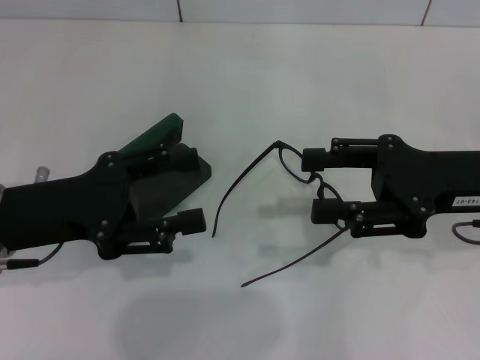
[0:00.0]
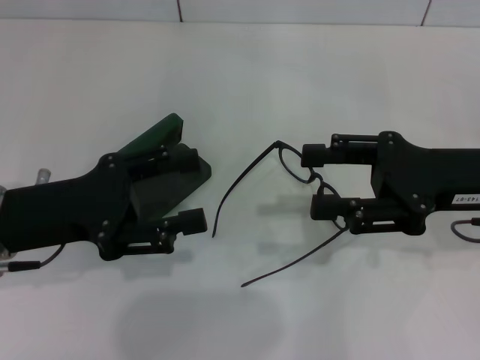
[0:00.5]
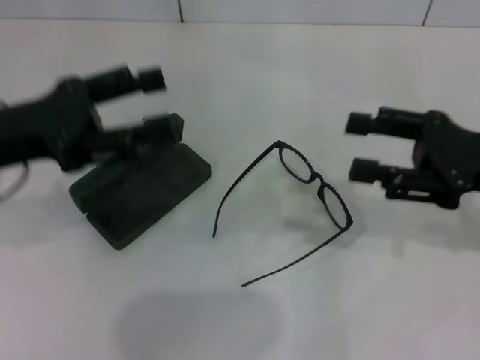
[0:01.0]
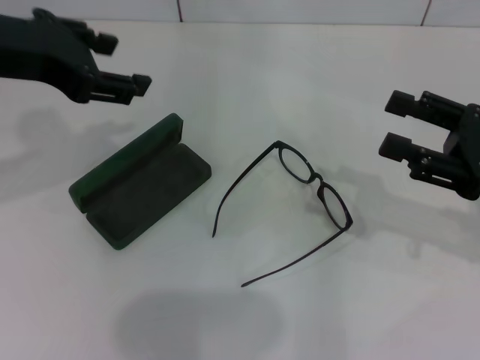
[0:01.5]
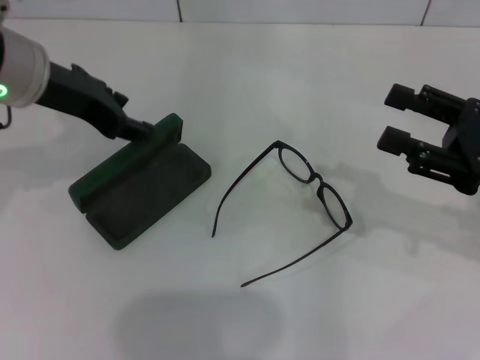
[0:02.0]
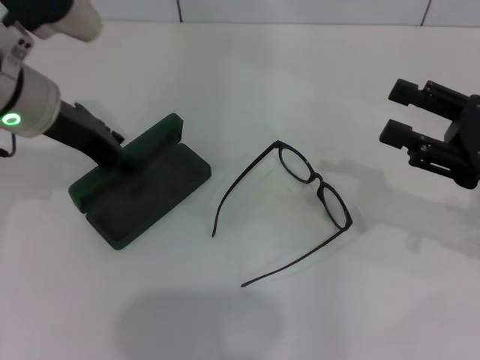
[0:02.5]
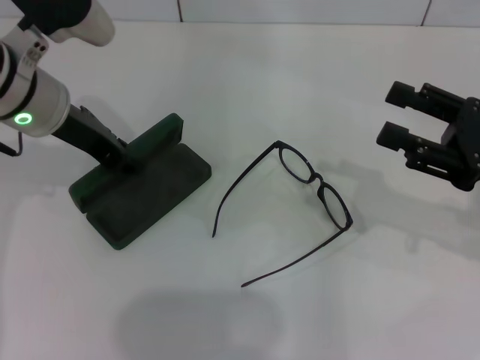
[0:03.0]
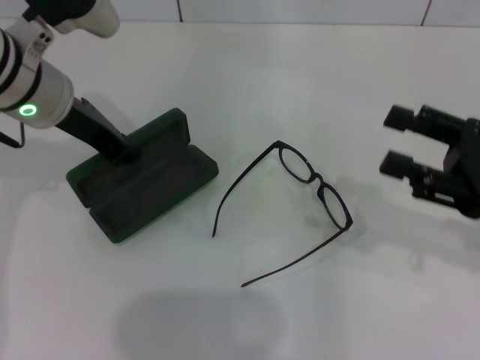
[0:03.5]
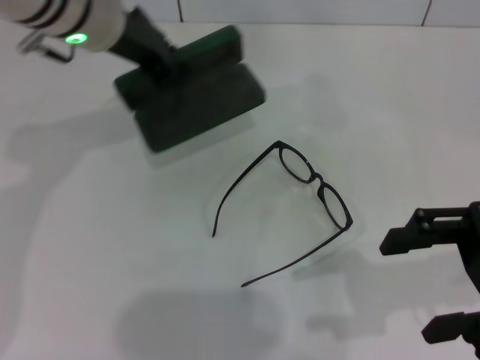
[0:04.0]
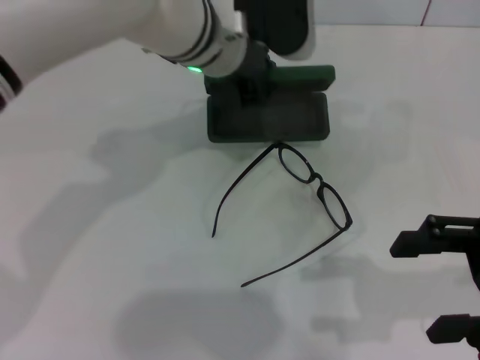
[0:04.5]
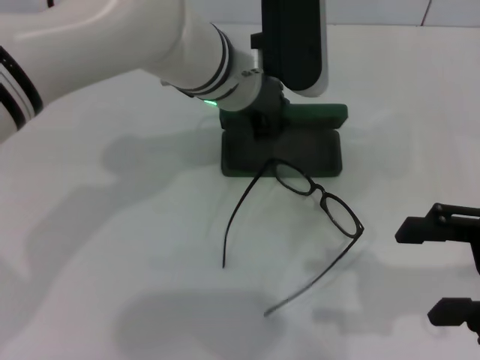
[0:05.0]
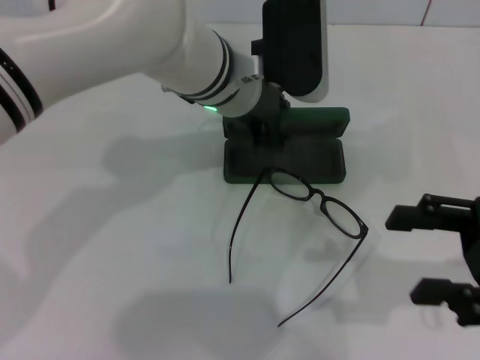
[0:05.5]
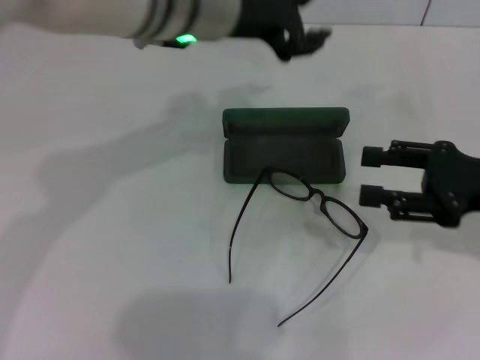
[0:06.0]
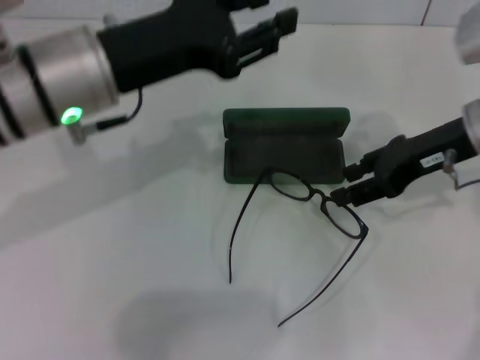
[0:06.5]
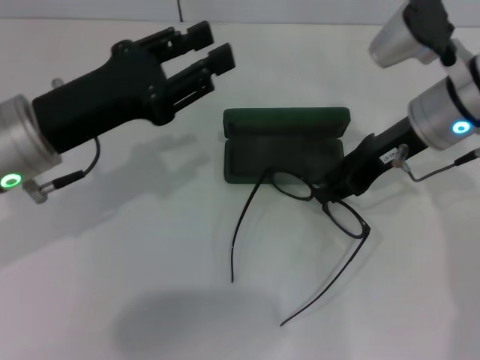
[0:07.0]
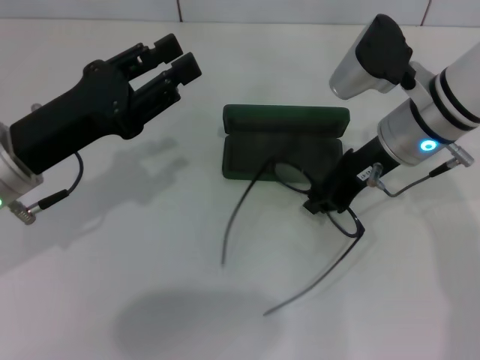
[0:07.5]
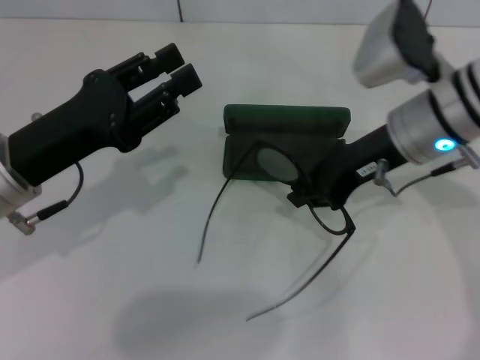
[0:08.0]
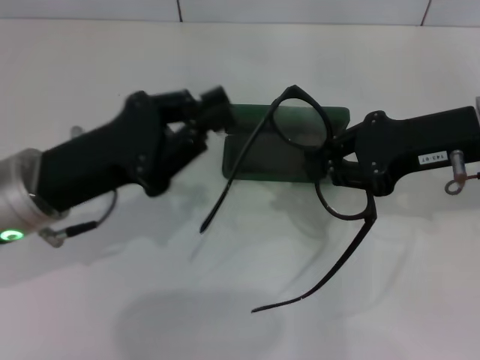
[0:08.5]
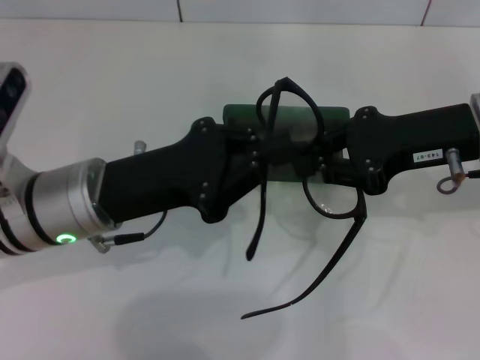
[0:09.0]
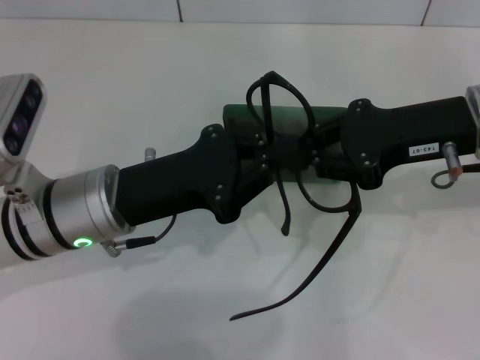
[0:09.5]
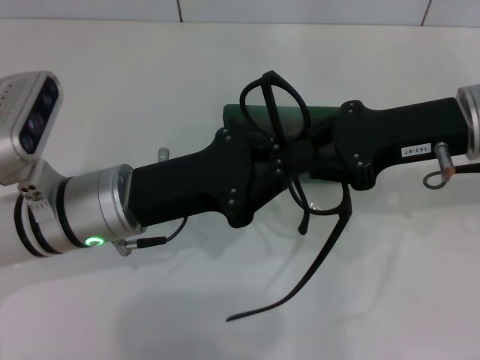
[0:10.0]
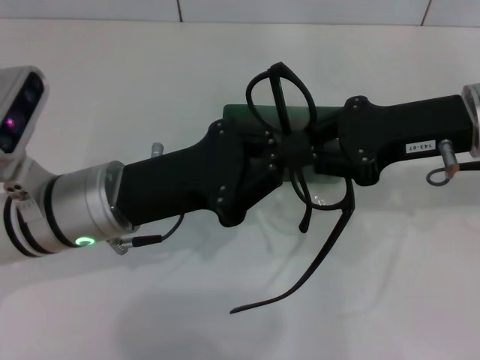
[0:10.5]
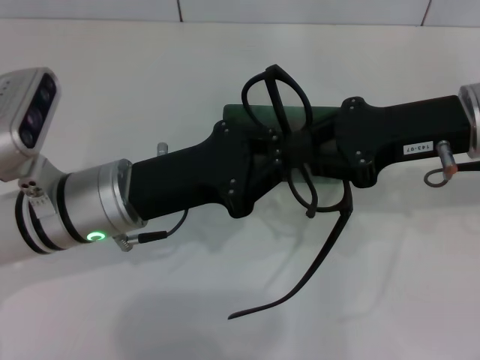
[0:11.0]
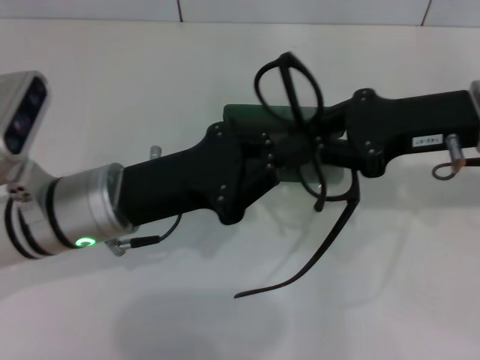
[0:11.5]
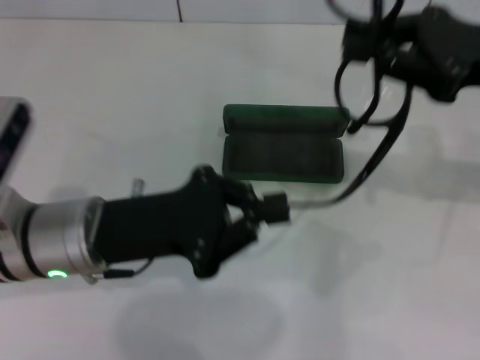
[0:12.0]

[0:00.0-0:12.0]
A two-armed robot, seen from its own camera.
Step, 0:00.0 to 0:03.0: Grab the glasses case with your left hand.
Step, 0:03.5 to 0:05.5: Place the glasses case in the center of the table with your left hand.
Step, 0:06.0 to 0:07.0: Grab the eyeglass frame with your right hand.
0:00.0 to 0:02.0: The right gripper goes about 5 cm to the right, while the left gripper is displaced forward and upward by approximately 15 cm.
0:02.0 to 0:04.0: The left gripper travels to the right by about 5 cm, and closes its fingers.
0:04.0 to 0:06.0: The right gripper is displaced forward by approximately 5 cm. The left gripper is displaced to the right by approximately 5 cm, and opens up.
0:06.0 to 0:08.0: The left gripper heads to the left, downward and backward, covering roughly 20 cm. Meanwhile the right gripper shifts roughly 15 cm to the left and forward, and closes.
0:08.0 to 0:10.0: The left gripper shifts about 10 cm to the right, and closes up. The right gripper ends up roughly 5 cm from where it was.
0:10.0 to 0:12.0: The right gripper shifts roughly 5 cm to the right.

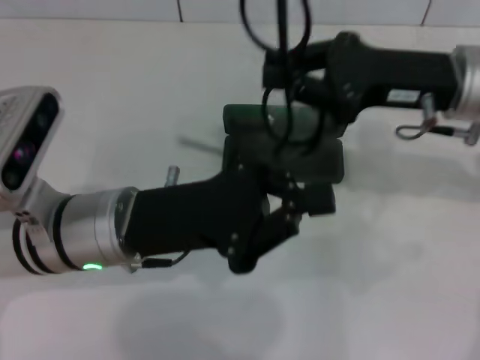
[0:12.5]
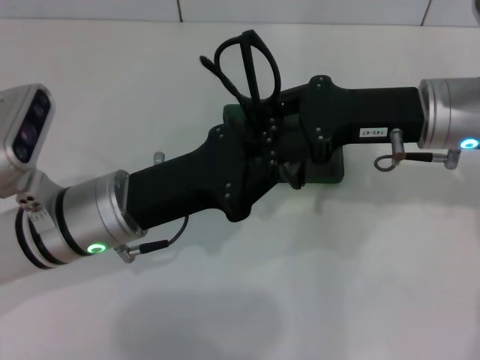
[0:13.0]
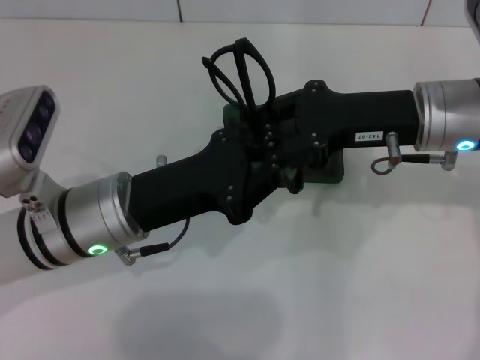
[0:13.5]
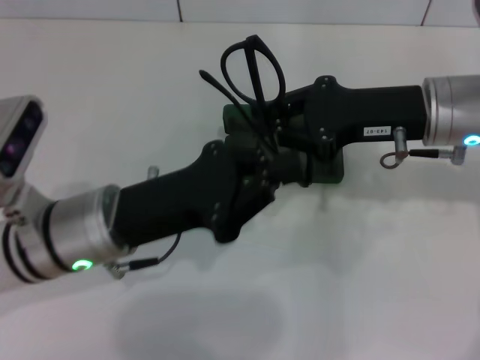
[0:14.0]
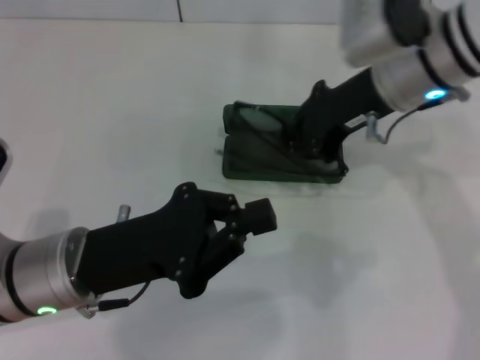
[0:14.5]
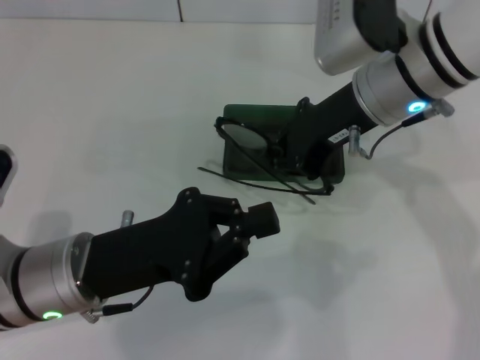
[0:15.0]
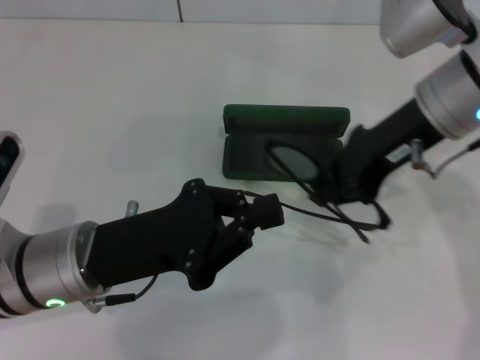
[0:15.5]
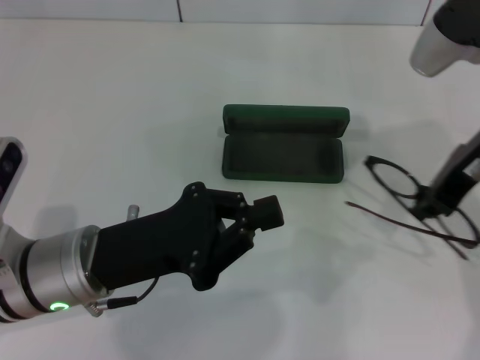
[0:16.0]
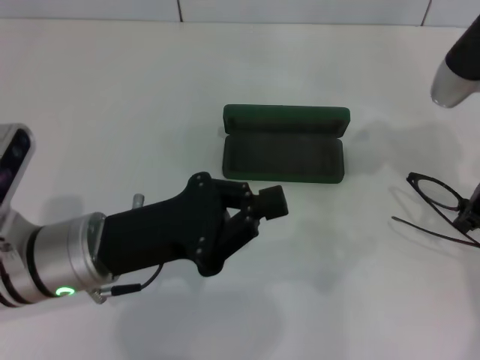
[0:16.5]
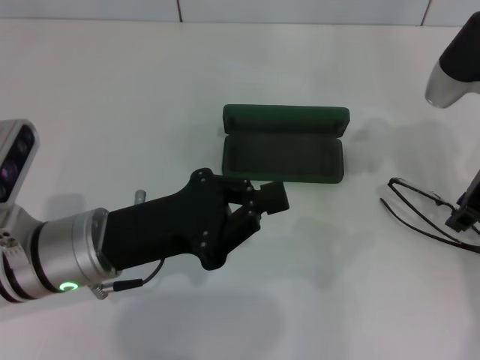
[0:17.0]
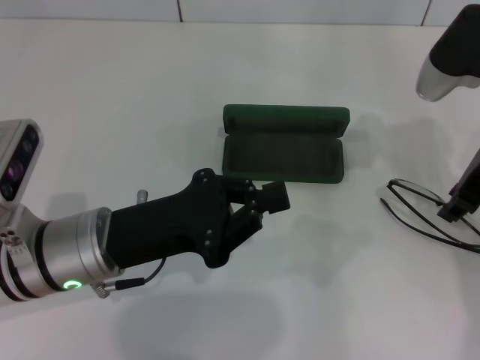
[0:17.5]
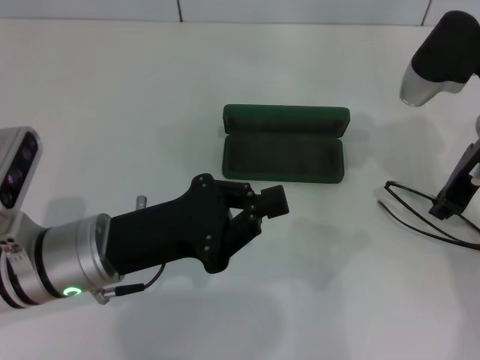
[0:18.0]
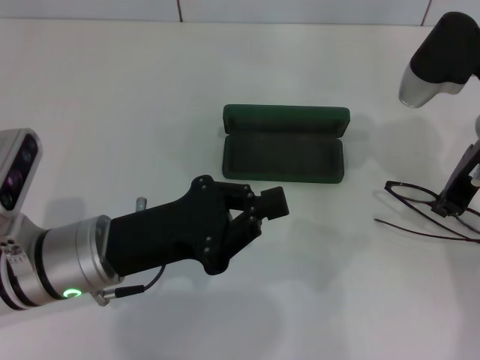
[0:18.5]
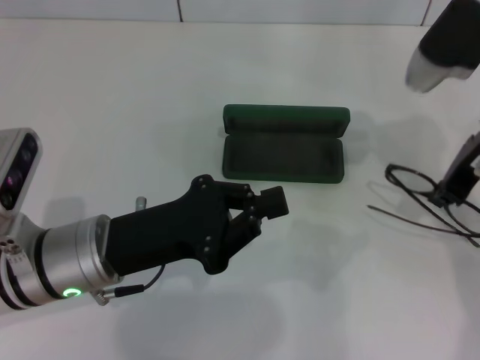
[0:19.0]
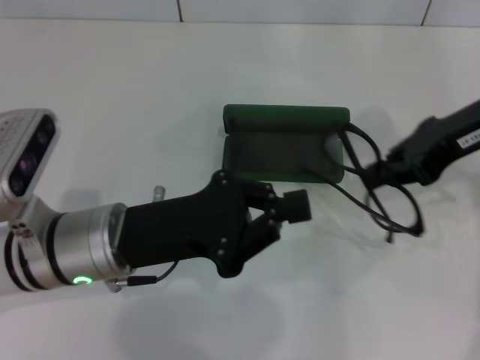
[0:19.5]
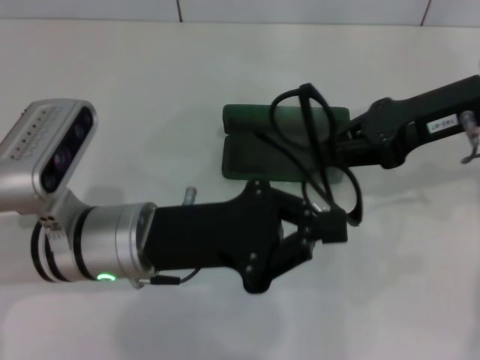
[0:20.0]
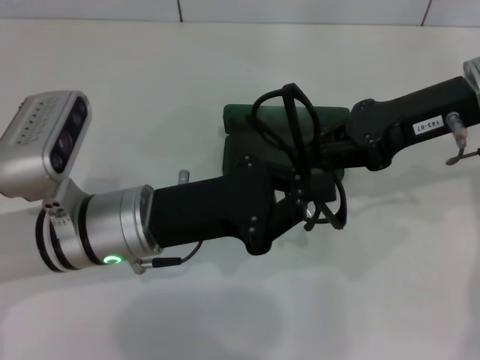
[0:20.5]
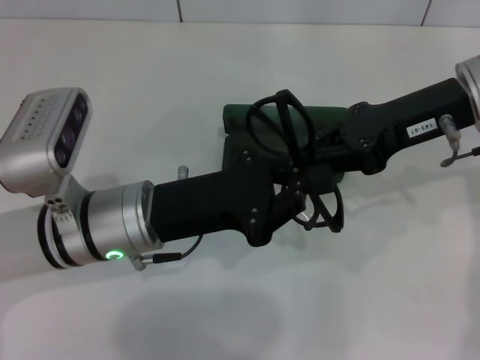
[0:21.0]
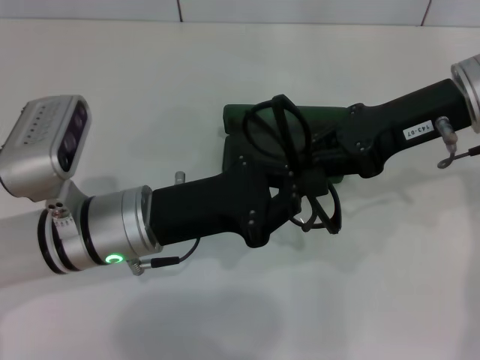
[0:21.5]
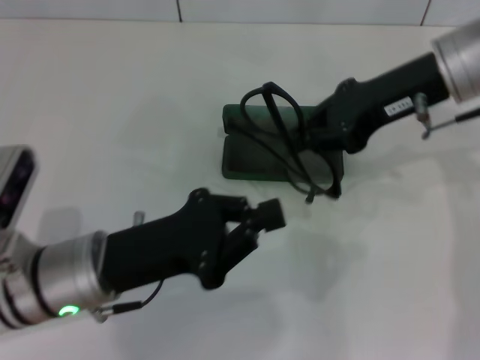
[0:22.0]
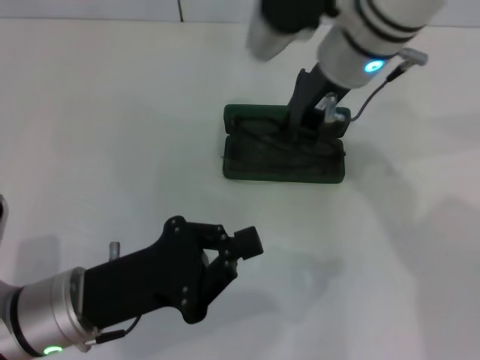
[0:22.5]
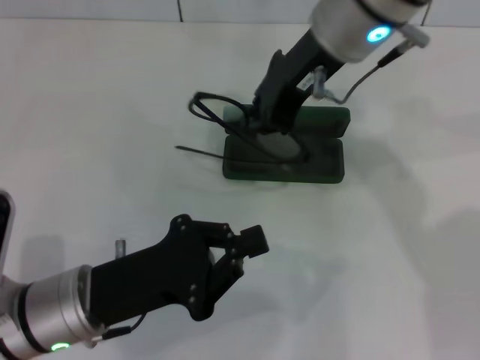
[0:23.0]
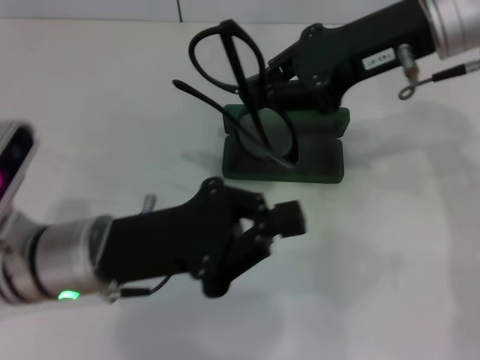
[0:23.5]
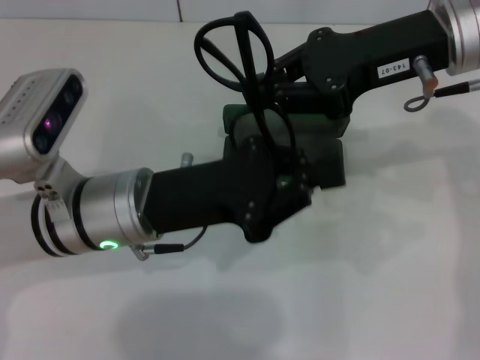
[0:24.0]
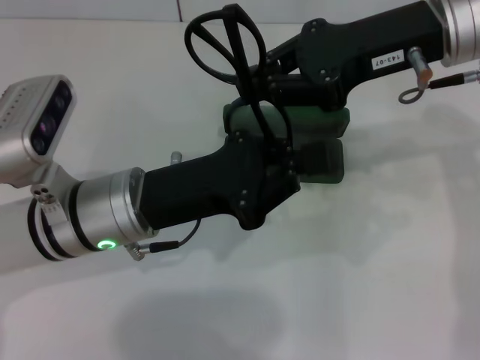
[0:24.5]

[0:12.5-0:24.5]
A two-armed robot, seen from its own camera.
0:12.5 to 0:14.5: The right gripper shifts about 5 cm to the left. The left gripper shifts by approximately 5 cm.
0:14.5 to 0:16.5: The right gripper goes some 10 cm to the right.
0:16.5 to 0:18.5: The right gripper opens, then closes again.
0:20.5 to 0:22.5: The right gripper shifts about 15 cm to the left; the left gripper moves backward, roughly 5 cm.
0:22.5 to 0:24.5: The left gripper shifts roughly 5 cm forward. Meanwhile the right gripper goes approximately 10 cm to the right.

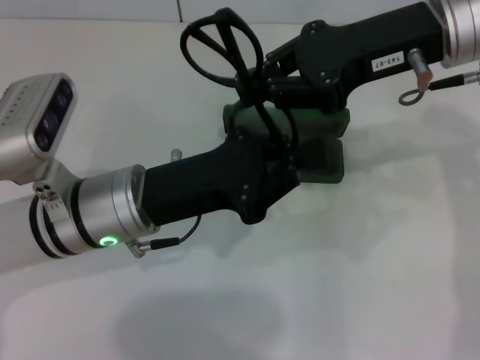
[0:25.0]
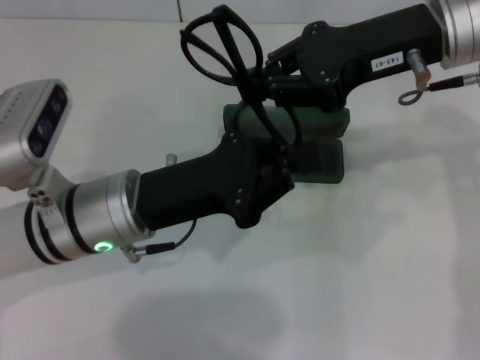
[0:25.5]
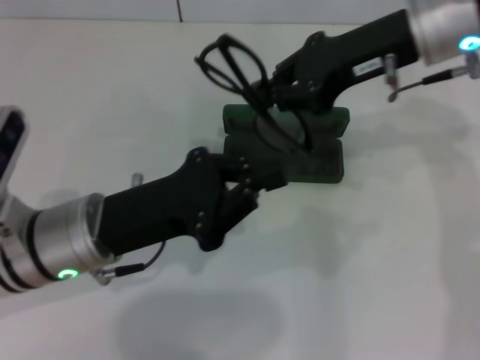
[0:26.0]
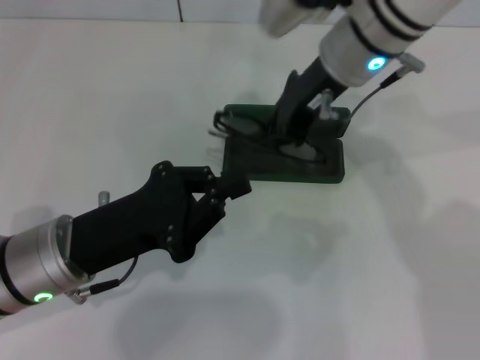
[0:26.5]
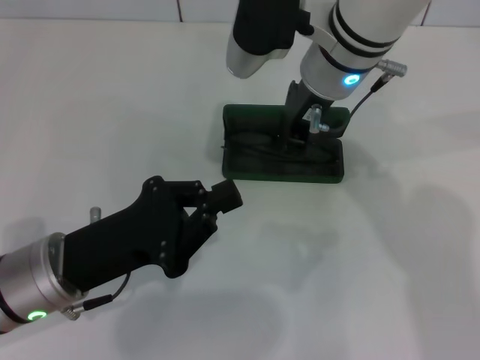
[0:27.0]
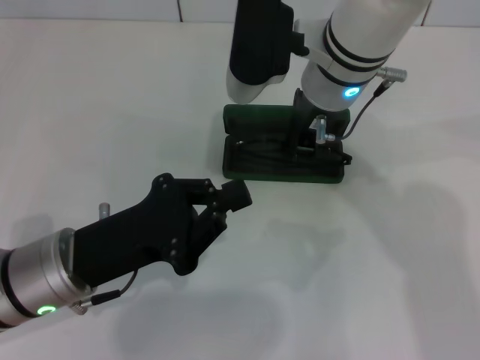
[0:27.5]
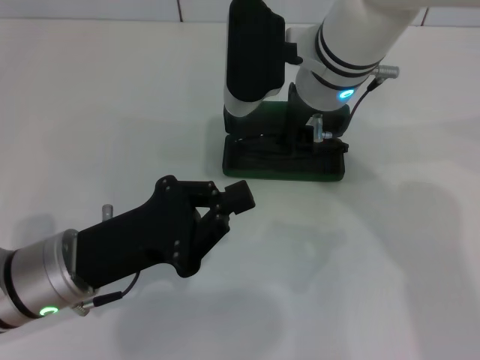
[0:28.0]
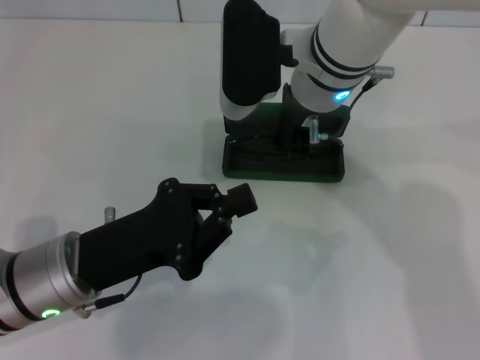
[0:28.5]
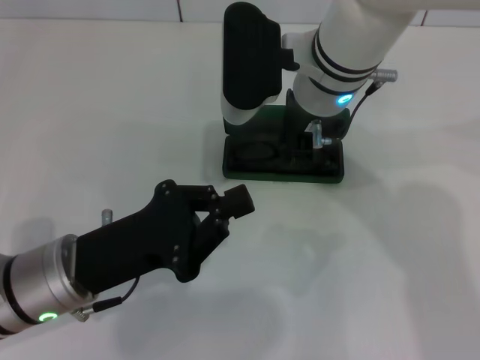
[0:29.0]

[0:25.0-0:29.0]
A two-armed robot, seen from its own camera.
0:25.0 to 0:27.0: The right gripper shifts some 10 cm to the left and downward, while the left gripper shifts roughly 10 cm to the left and backward.
0:27.0 to 0:29.0: The grippers stay close to where they were, moving slightly.
